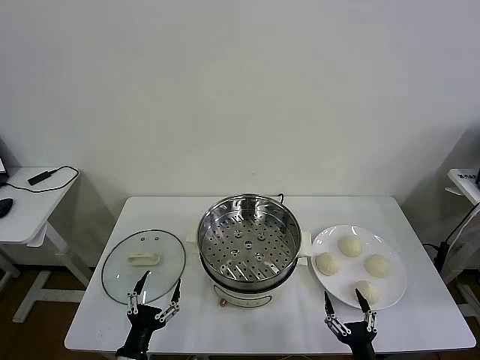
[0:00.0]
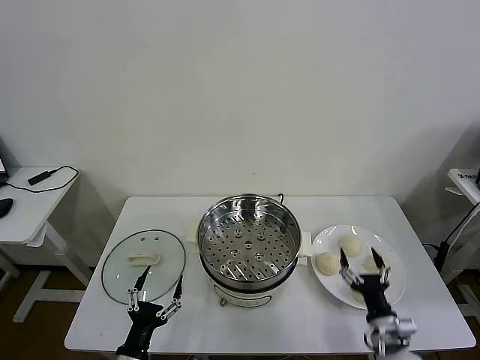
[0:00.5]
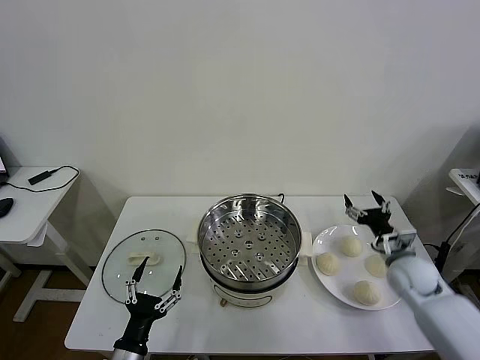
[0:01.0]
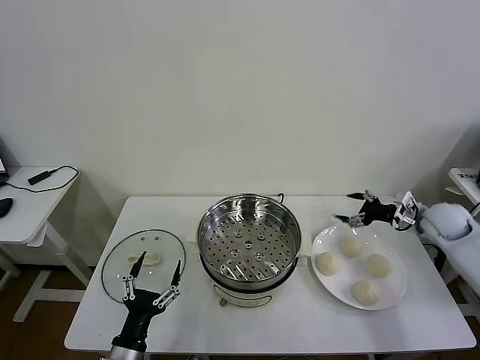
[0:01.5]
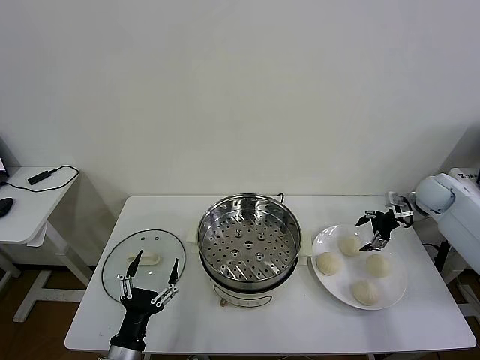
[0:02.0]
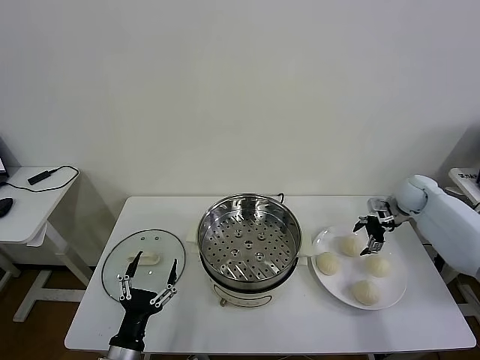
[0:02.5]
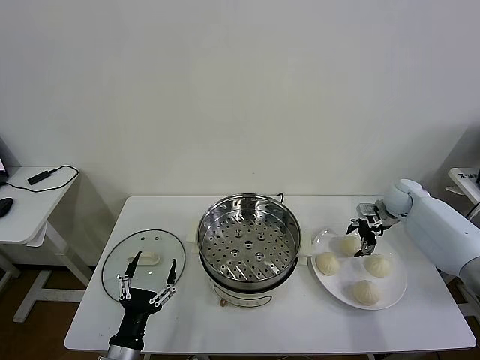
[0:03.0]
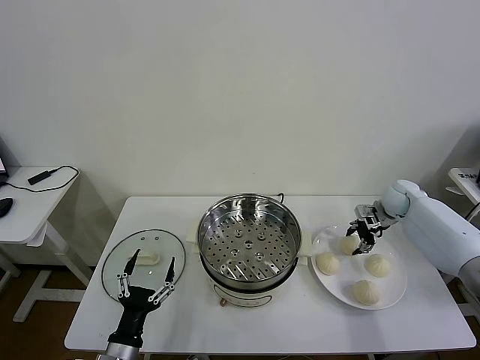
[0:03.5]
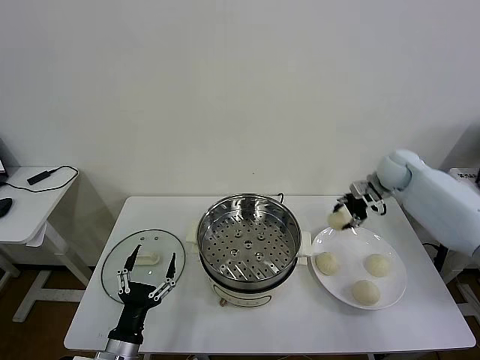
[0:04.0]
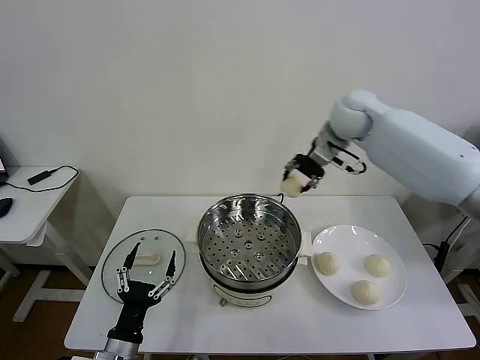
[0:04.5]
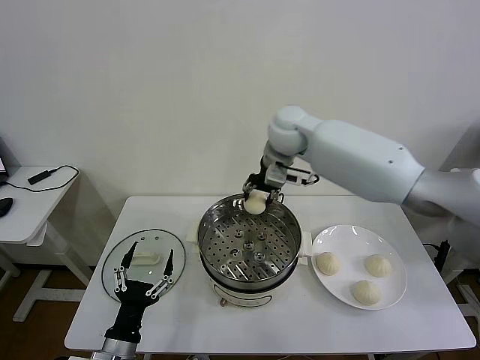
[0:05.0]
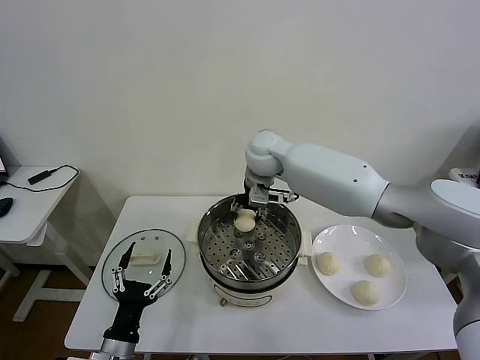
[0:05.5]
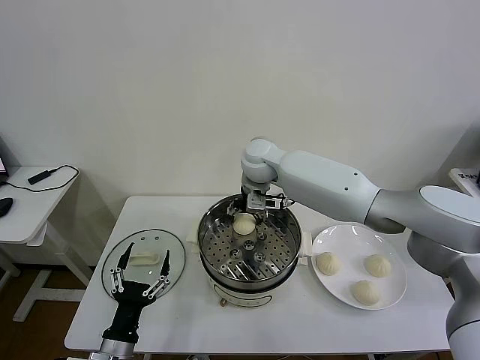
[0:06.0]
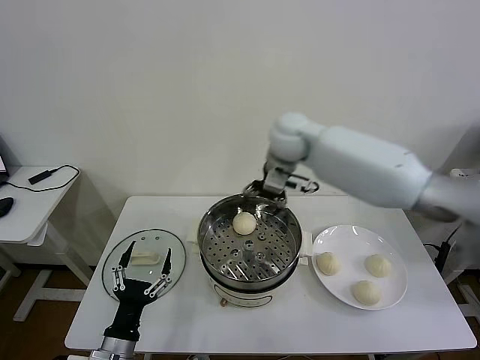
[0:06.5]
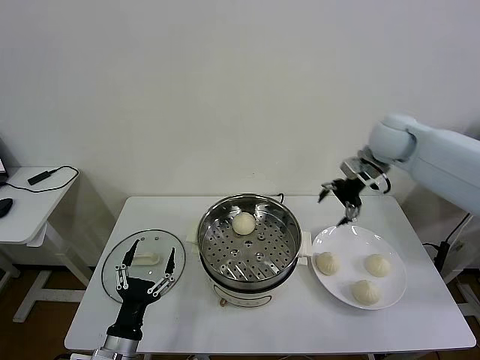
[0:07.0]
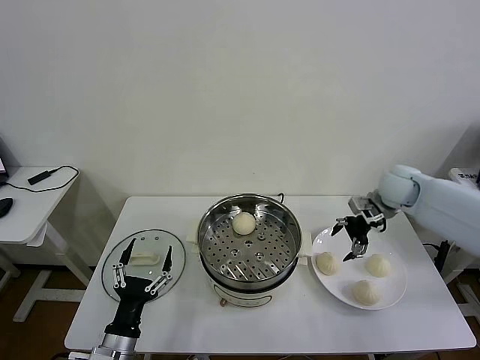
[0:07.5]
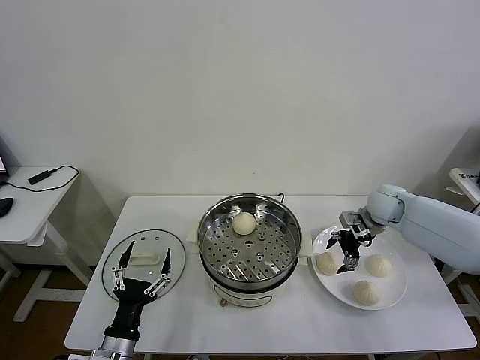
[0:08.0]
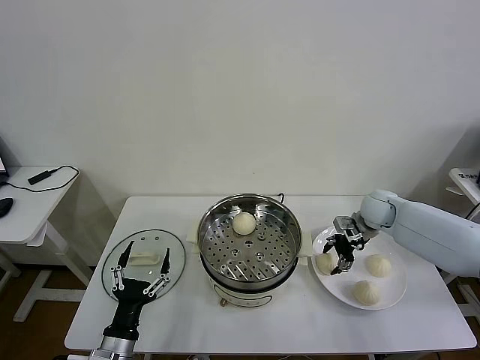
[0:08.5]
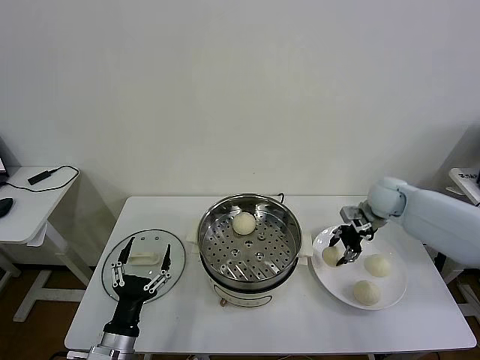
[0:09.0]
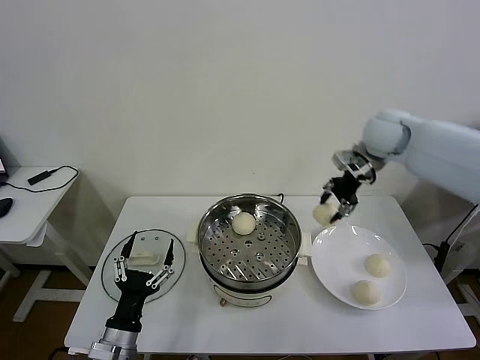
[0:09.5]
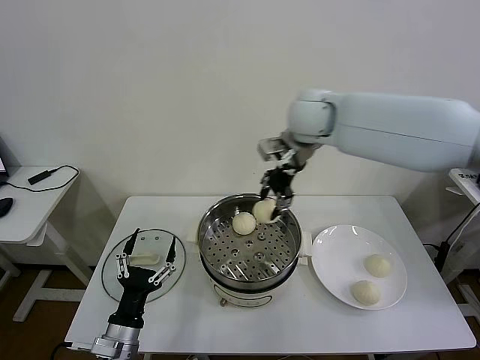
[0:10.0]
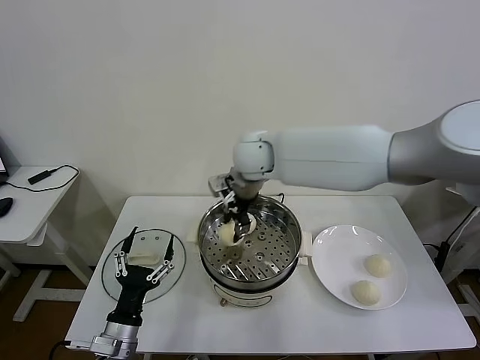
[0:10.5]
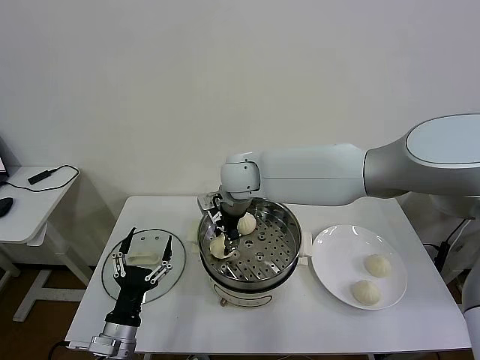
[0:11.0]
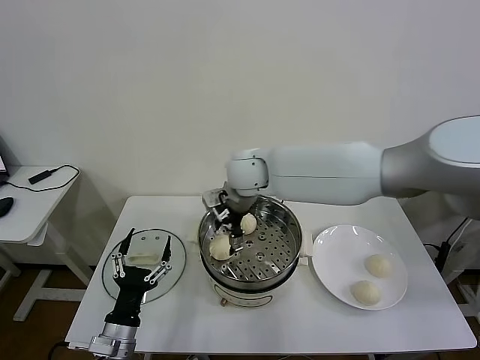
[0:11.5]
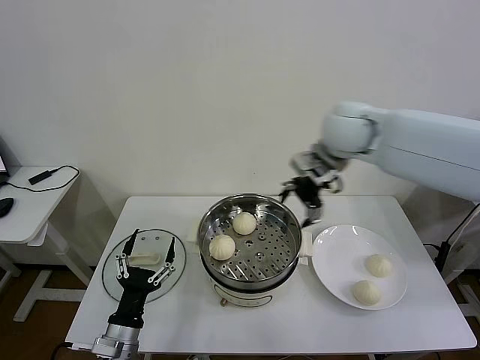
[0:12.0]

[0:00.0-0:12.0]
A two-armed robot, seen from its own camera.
Task of the whole recording: take steamed baozi put them in steamer then cover it.
Step, 0:00.0 to 0:03.5: Grasp the baozi in the plate with right gripper.
Step, 0:04.0 to 0:06.0: Place the baozi on the steamer with right gripper.
Step, 0:06.5 to 0:08.5: Grasp the baozi in the plate with right gripper.
Step, 0:09.0 to 0:11.0: Place the baozi on the steamer with right gripper.
0:02.0 to 0:04.0: The right gripper moves to the left and upward, about 15 cm, and closes its fingers.
0:04.0 to 0:06.0: The right gripper moves to the left, roughly 30 cm, and opens up.
0:06.0 to 0:08.0: The right gripper moves to the right, about 30 cm.
0:08.0 to 0:10.0: The right gripper moves to the left and upward, approximately 35 cm, and closes its fingers.
0:10.0 to 0:12.0: The right gripper is displaced to the right by approximately 15 cm, and opens up.

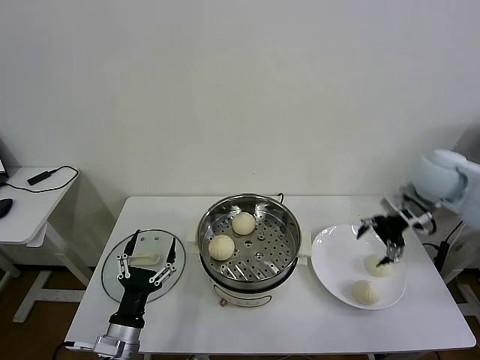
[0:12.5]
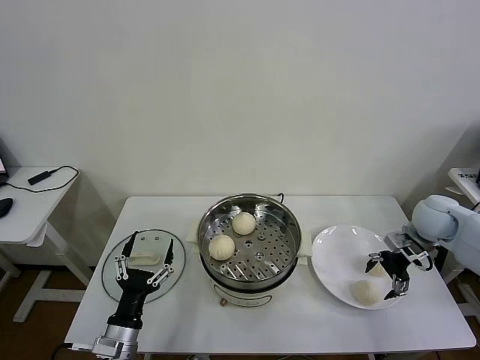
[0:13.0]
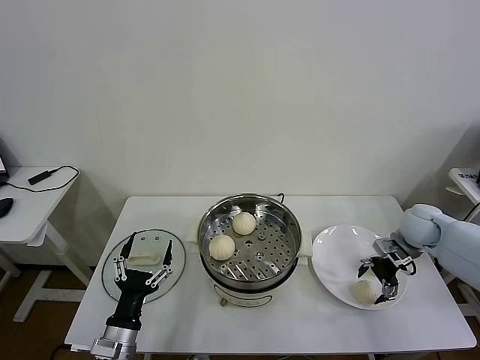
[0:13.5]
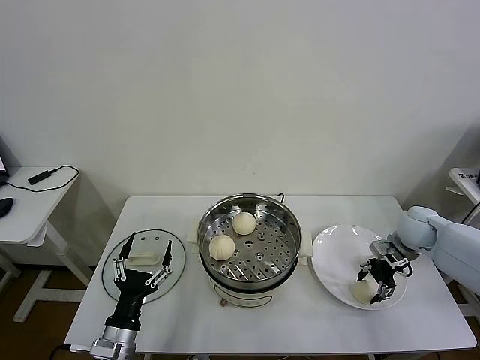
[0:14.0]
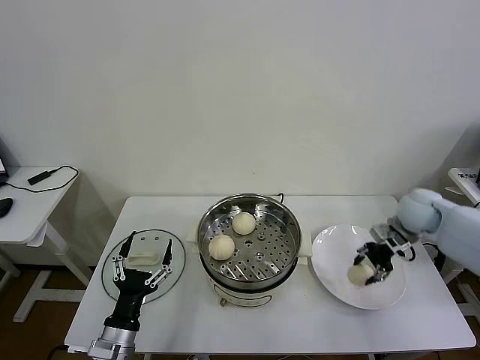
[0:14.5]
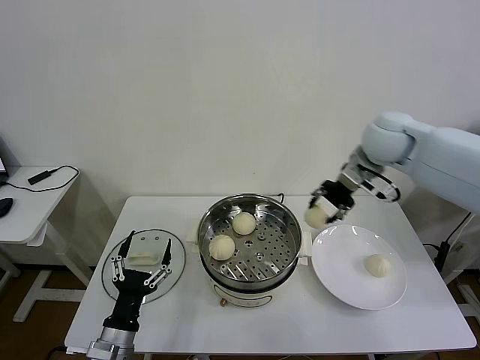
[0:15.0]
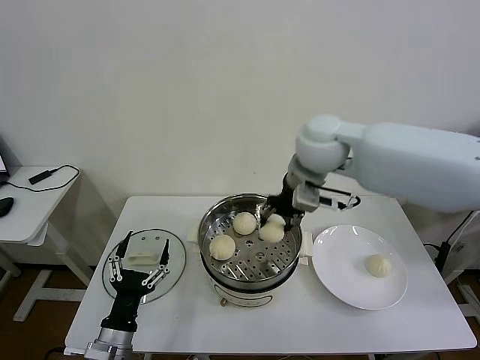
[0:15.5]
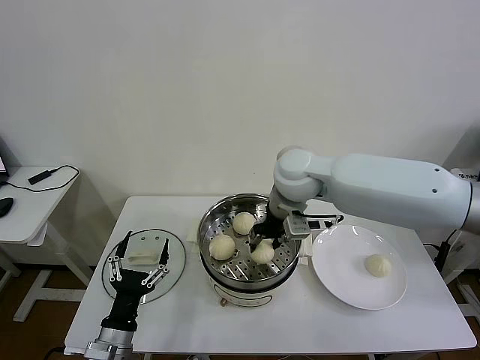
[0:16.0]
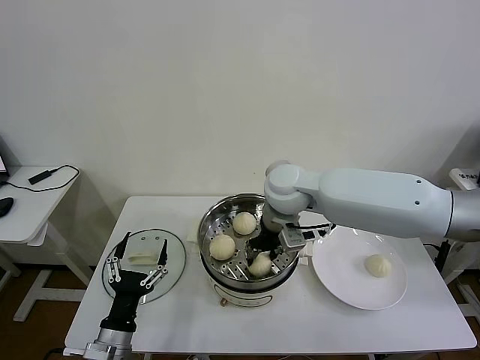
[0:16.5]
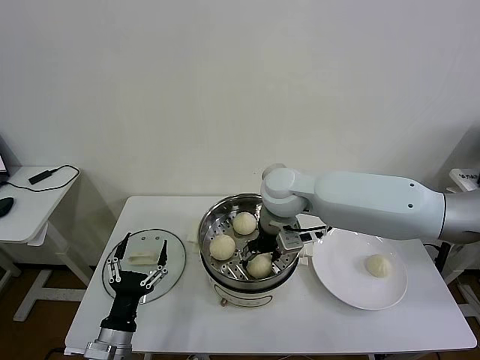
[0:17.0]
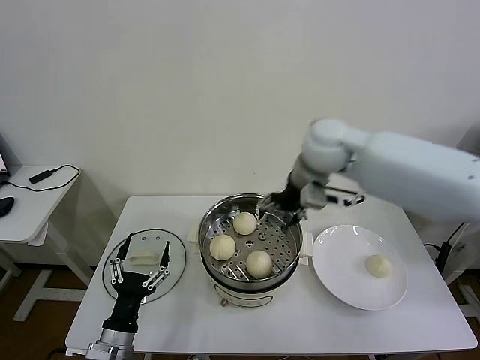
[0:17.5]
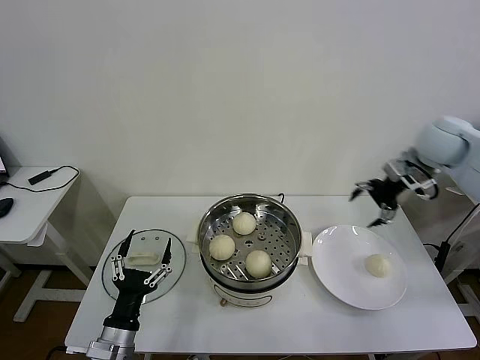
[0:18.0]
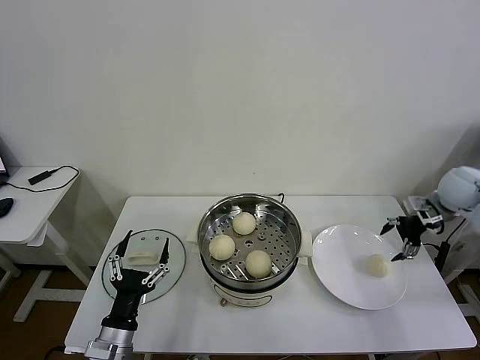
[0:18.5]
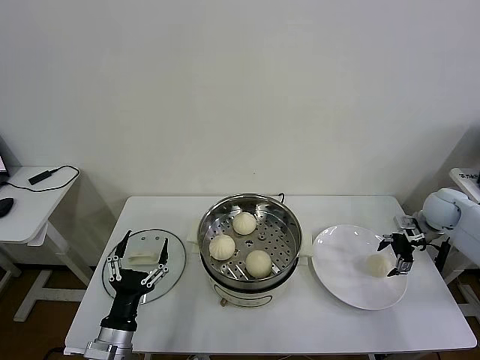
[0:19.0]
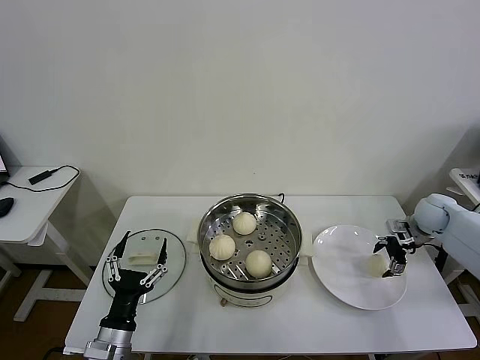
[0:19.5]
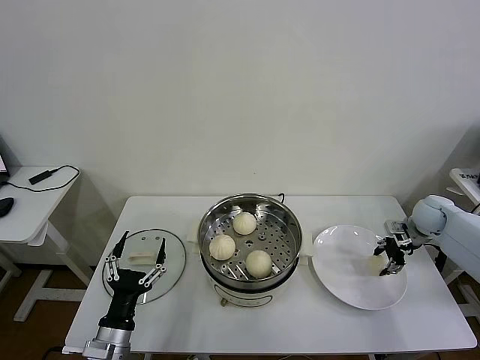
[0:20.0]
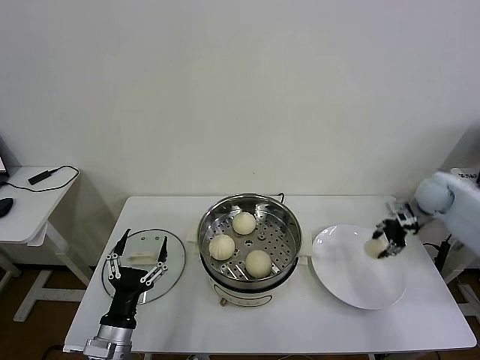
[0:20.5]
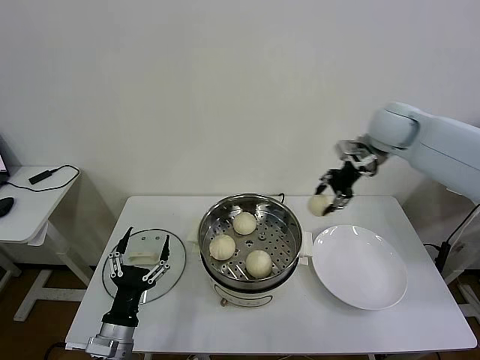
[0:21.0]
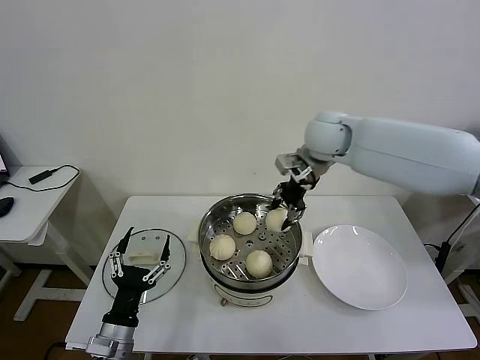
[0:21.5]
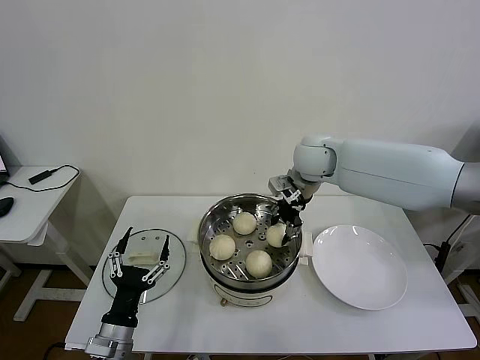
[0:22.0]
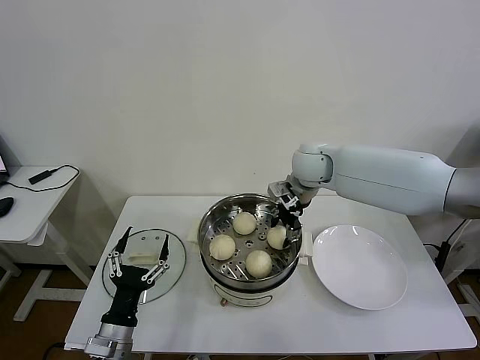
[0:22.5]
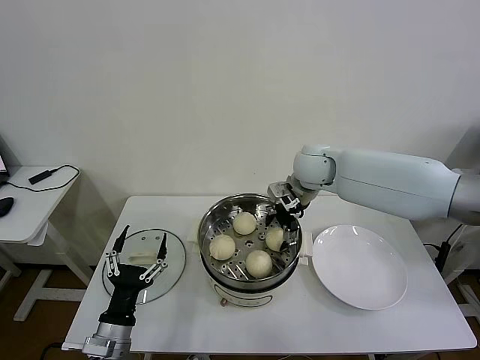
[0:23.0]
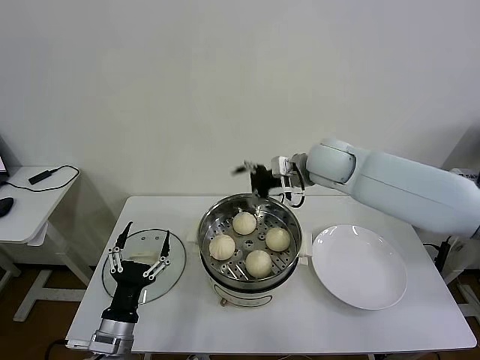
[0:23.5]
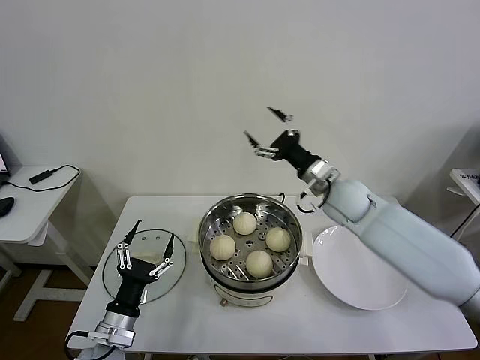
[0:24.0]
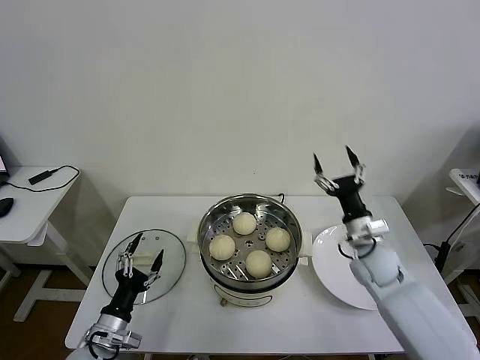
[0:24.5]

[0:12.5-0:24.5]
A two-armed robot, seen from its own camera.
Task of the whole recording: take steamed baozi put them in steamer then cover it.
Step, 0:12.5 to 0:14.0: Grasp the baozi in the plate with right gripper.
Step, 0:14.5 to 0:16.5: Place the baozi on the steamer with right gripper.
Step, 0:17.0 to 0:20.0: Grasp the baozi in the plate with right gripper.
Step, 0:20.5 to 0:22.5: Place the baozi on the steamer with right gripper.
0:12.5 to 0:14.5: The right gripper travels downward by roughly 5 cm, and closes.
0:14.5 to 0:16.5: The right gripper goes roughly 30 cm to the left.
0:16.5 to 0:18.5: The right gripper moves to the right, approximately 40 cm, and opens up.
0:18.5 to 0:20.5: The right gripper goes downward and returns, roughly 10 cm each way, and closes up.
0:20.5 to 0:22.5: The right gripper moves to the left, some 30 cm.
0:22.5 to 0:24.5: The left gripper heads to the left, covering about 5 cm. The right gripper heads downward, backward and to the right, covering approximately 30 cm, and opens.

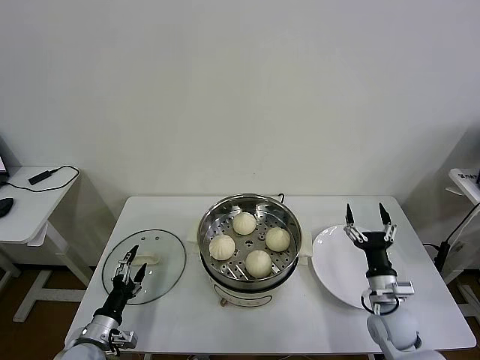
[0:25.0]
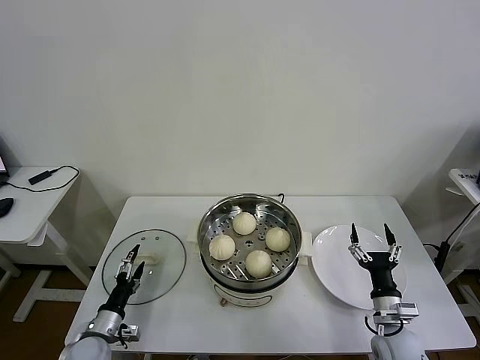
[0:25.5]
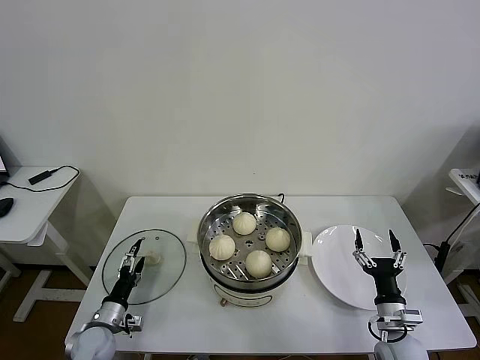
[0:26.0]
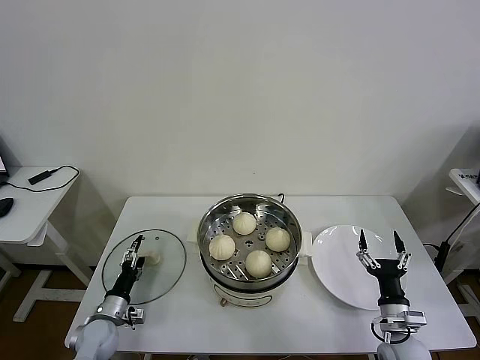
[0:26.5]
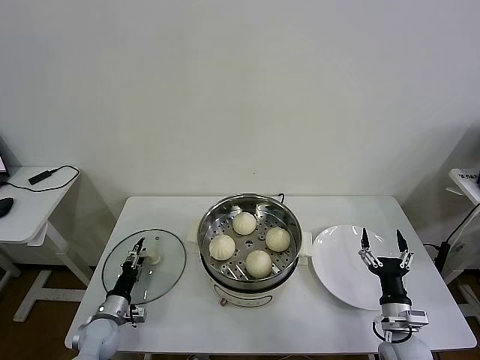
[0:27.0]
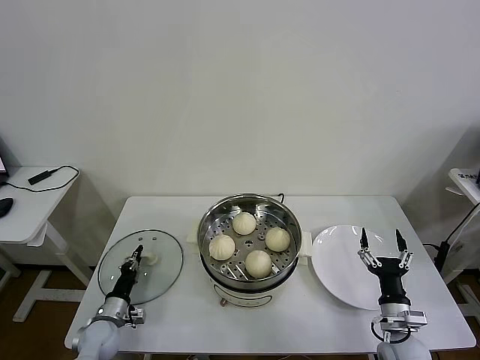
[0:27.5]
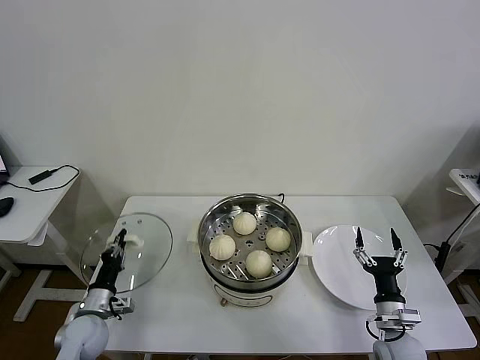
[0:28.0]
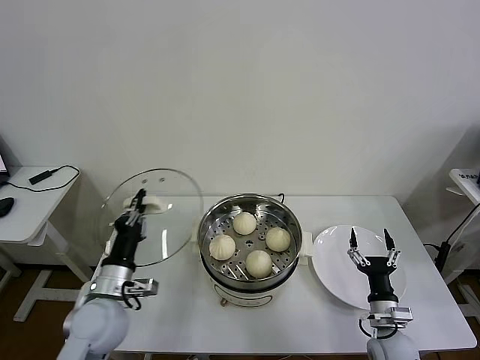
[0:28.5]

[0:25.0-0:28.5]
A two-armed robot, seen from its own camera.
Task of the whole recording: take steamed baozi put them in steamer then cover it.
Step, 0:25.0 to 0:27.5: Grasp the pot lid with left gripper.
0:25.0 to 0:27.0: The left gripper goes approximately 10 cm forward and downward, and closes up. Meanwhile the right gripper goes approximately 5 cm backward.
0:27.0 to 0:28.5: The left gripper moves upward and to the right, some 20 cm, and closes.
